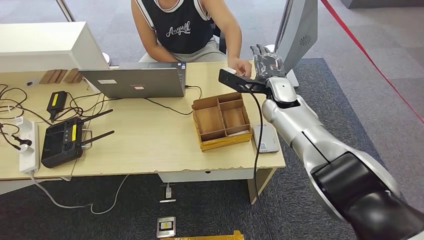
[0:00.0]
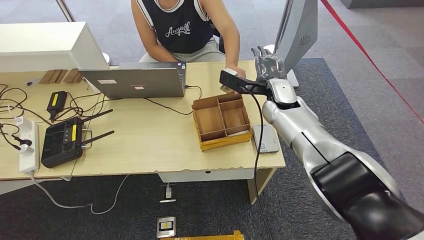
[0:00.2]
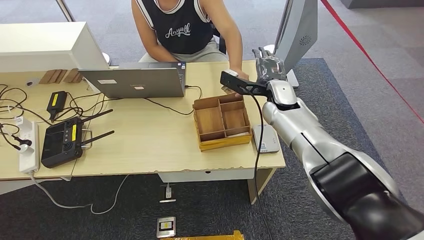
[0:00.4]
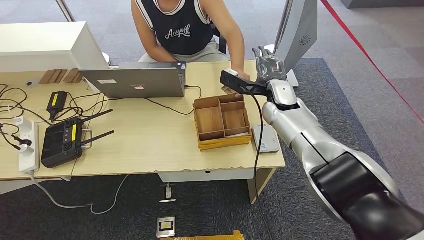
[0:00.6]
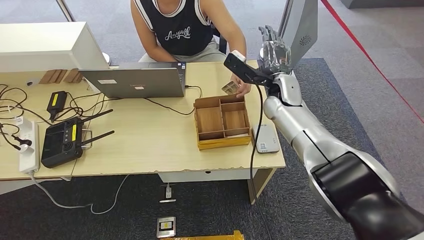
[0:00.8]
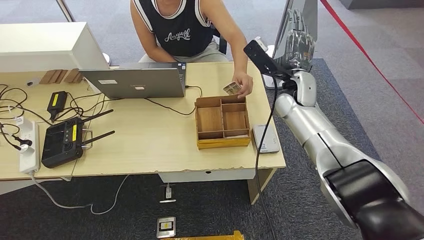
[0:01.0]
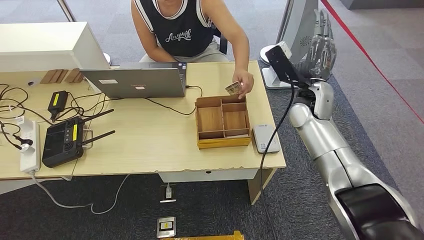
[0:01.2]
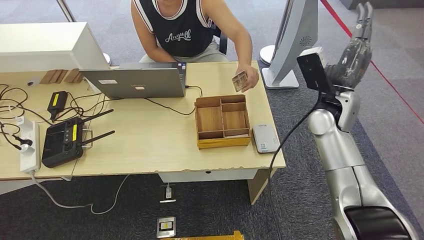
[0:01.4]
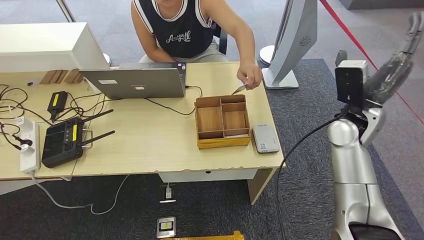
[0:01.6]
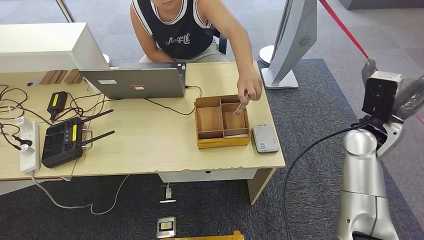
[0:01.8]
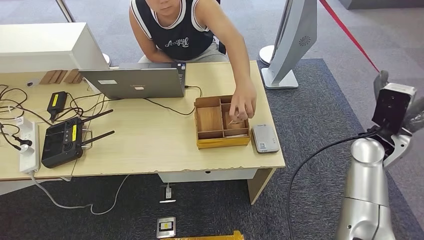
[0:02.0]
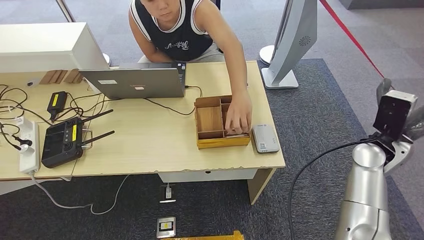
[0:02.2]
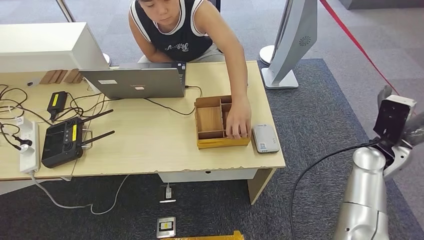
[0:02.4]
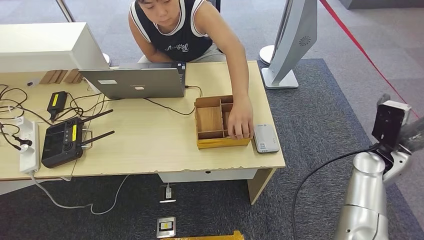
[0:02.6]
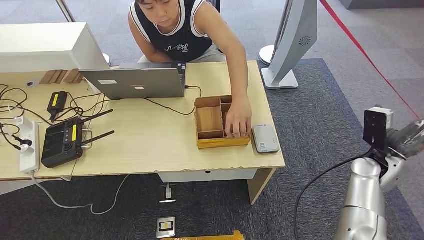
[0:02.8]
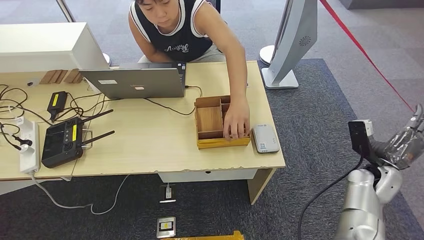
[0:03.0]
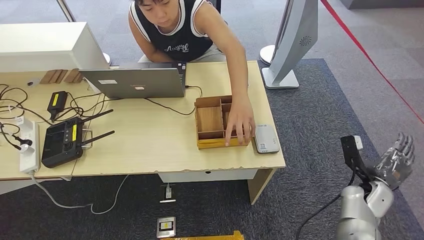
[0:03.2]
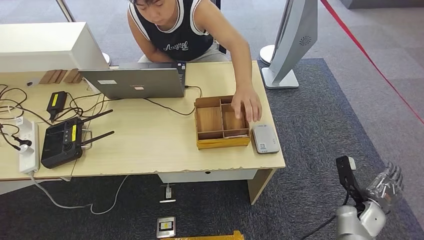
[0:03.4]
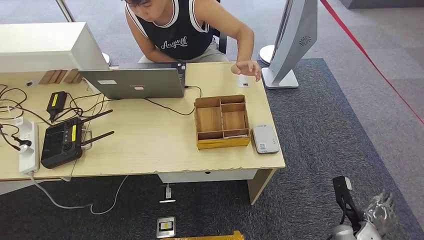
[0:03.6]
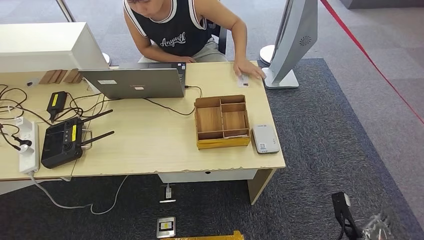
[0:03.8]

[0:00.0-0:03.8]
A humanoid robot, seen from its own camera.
Step, 0:00.0 to 0:03.8: Hand the room key to the person.
0:02.6 to 0:03.8: The right hand goes approximately 30 cm downward and backward.

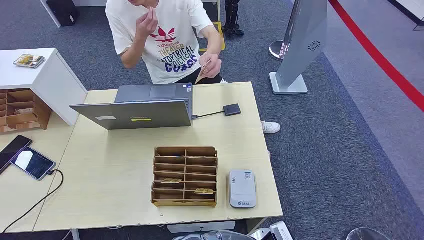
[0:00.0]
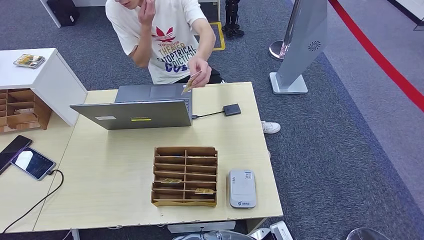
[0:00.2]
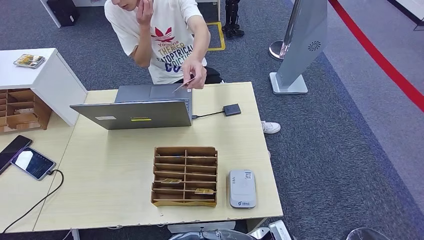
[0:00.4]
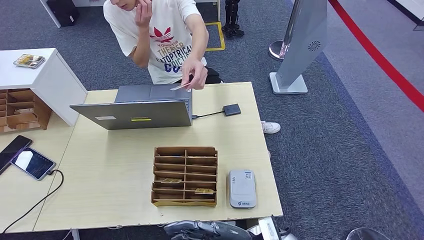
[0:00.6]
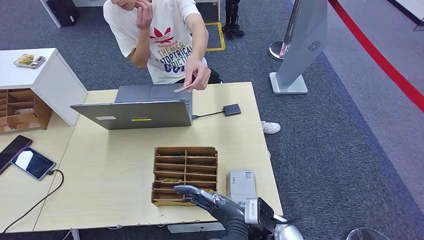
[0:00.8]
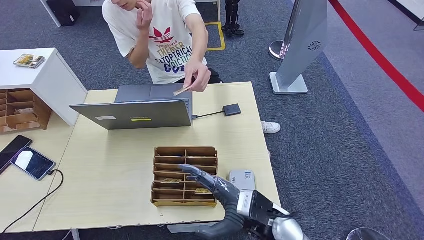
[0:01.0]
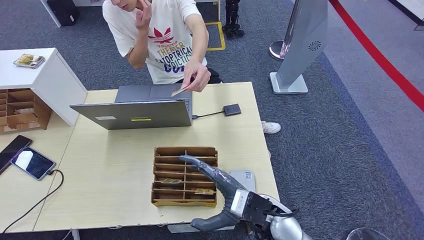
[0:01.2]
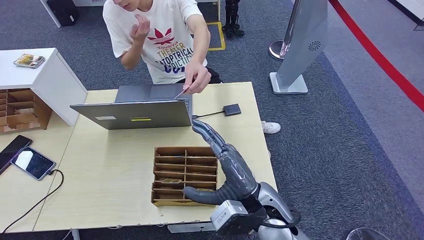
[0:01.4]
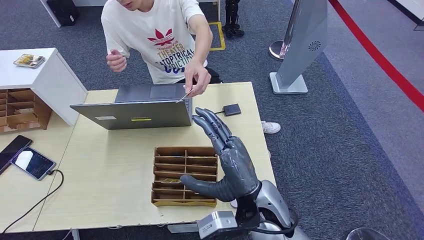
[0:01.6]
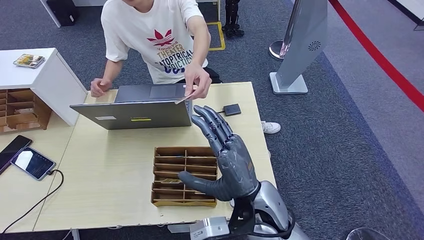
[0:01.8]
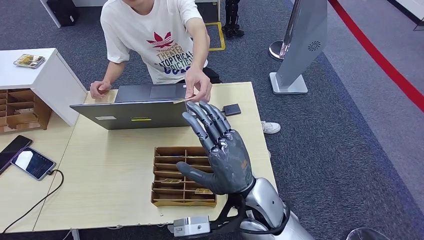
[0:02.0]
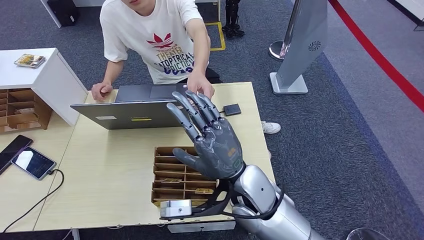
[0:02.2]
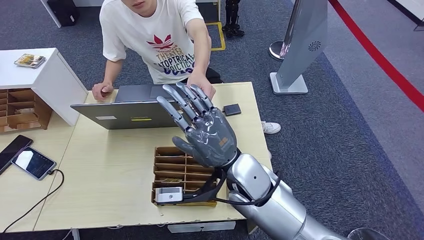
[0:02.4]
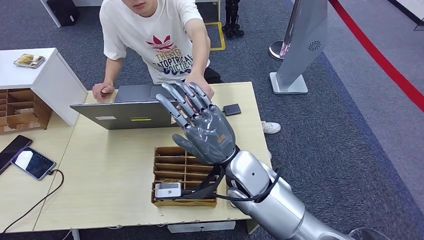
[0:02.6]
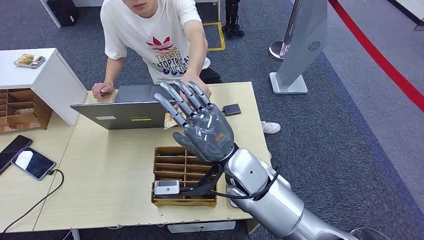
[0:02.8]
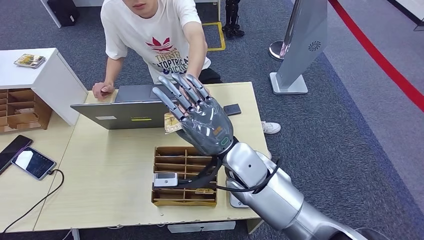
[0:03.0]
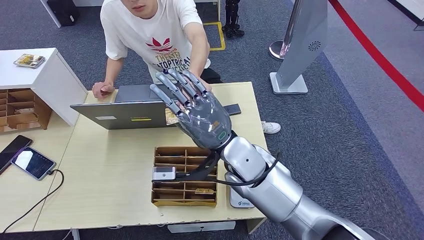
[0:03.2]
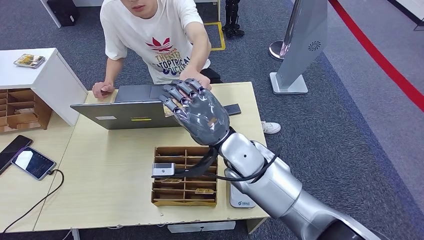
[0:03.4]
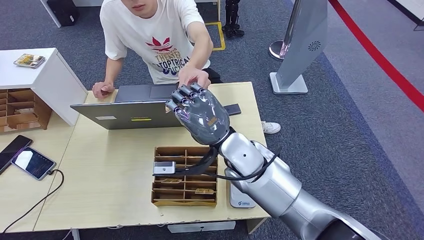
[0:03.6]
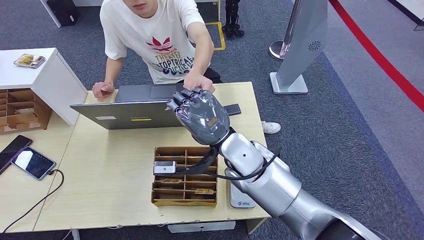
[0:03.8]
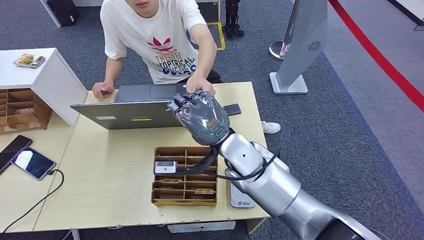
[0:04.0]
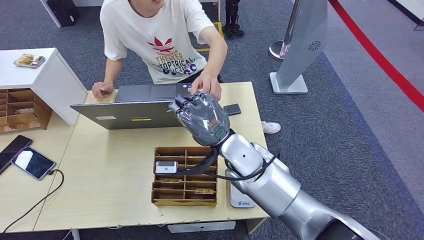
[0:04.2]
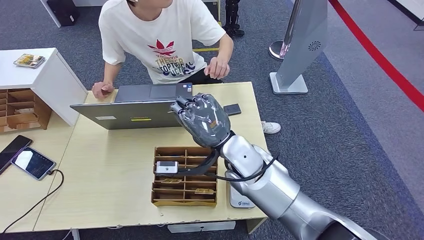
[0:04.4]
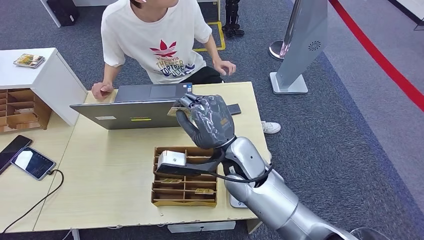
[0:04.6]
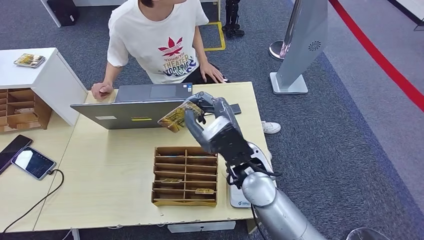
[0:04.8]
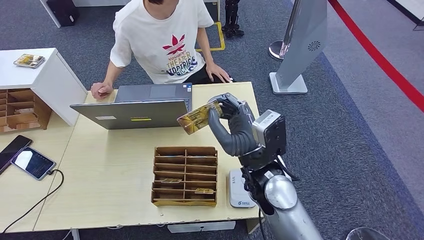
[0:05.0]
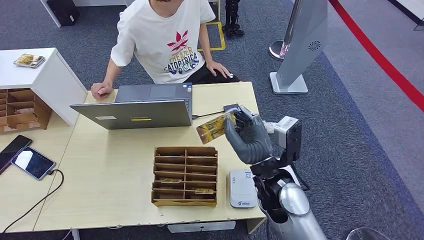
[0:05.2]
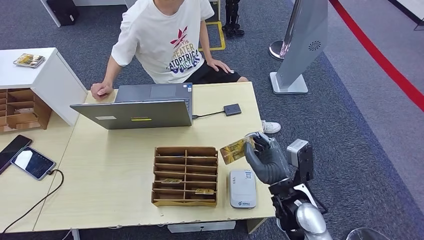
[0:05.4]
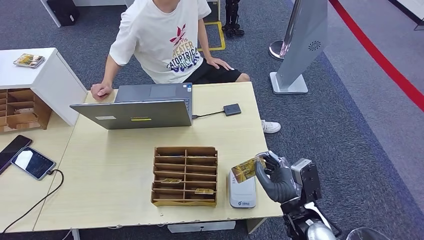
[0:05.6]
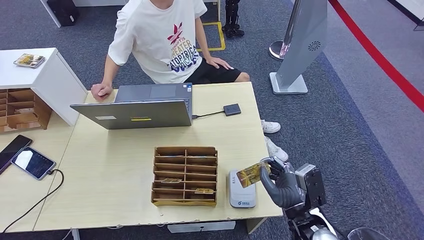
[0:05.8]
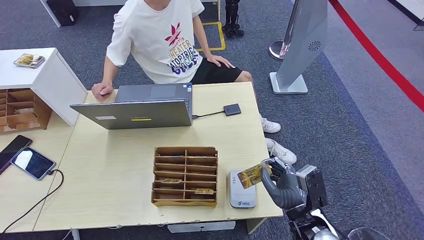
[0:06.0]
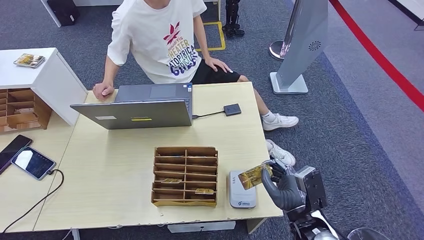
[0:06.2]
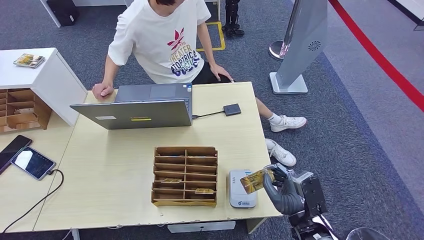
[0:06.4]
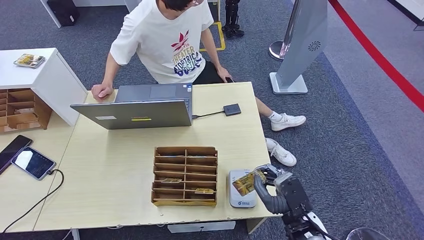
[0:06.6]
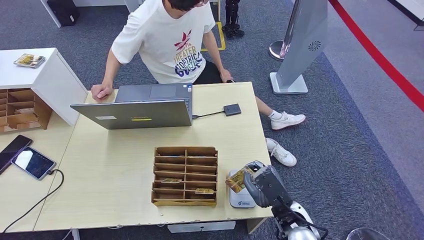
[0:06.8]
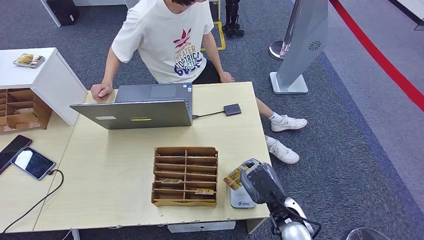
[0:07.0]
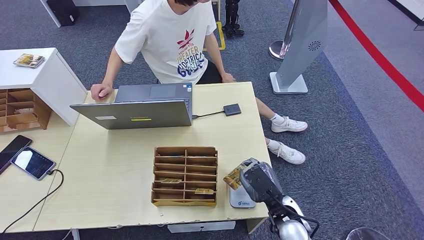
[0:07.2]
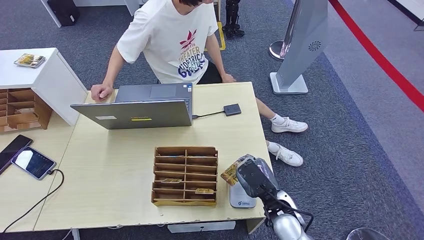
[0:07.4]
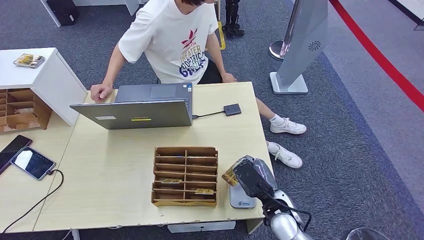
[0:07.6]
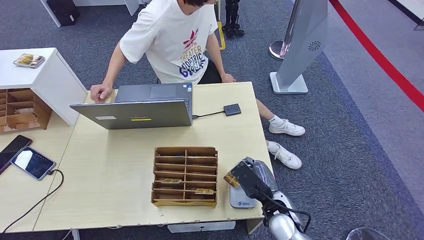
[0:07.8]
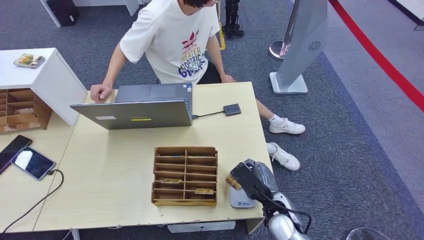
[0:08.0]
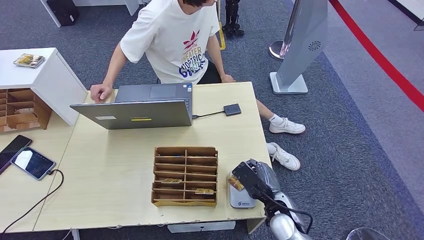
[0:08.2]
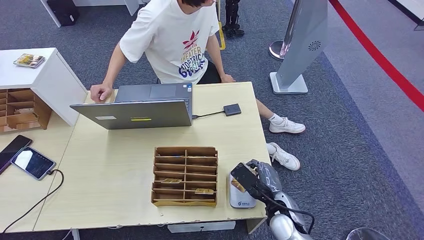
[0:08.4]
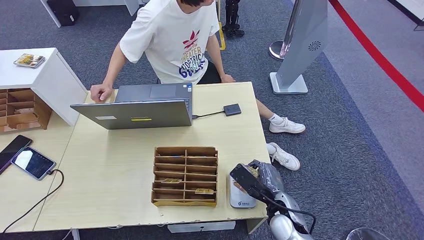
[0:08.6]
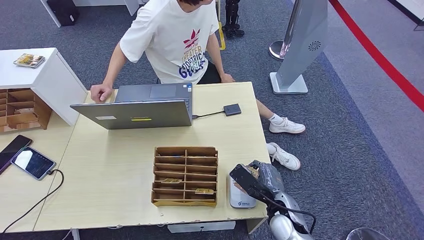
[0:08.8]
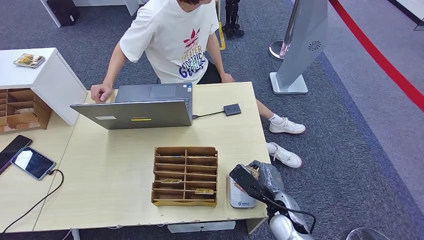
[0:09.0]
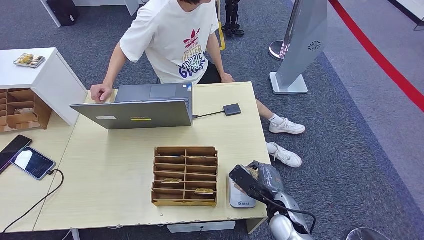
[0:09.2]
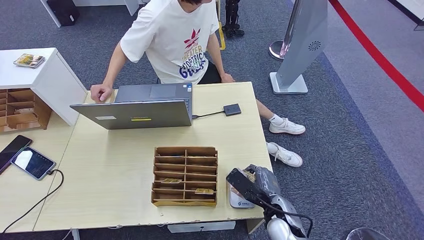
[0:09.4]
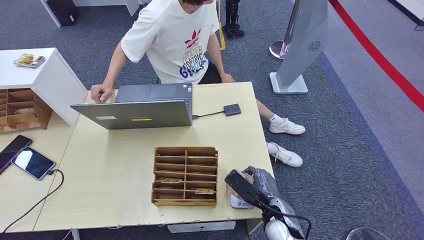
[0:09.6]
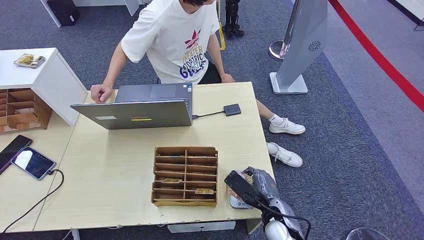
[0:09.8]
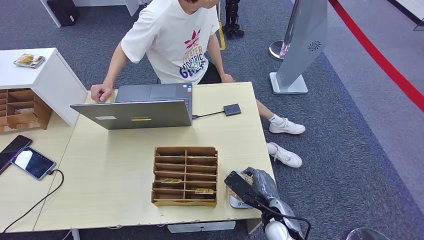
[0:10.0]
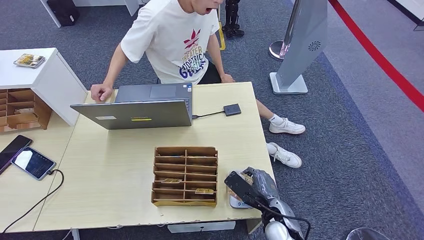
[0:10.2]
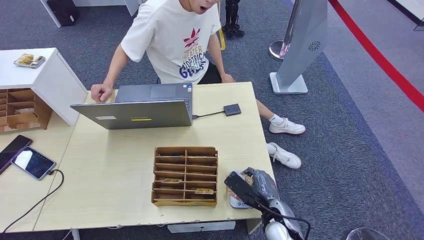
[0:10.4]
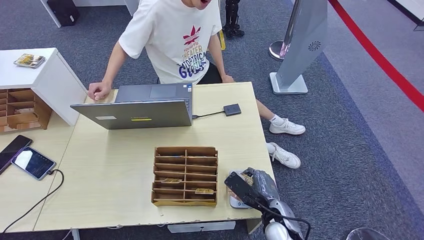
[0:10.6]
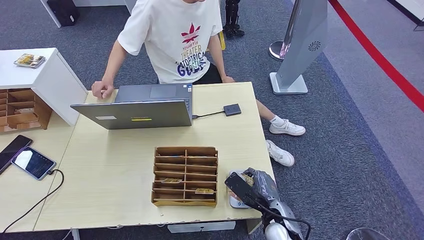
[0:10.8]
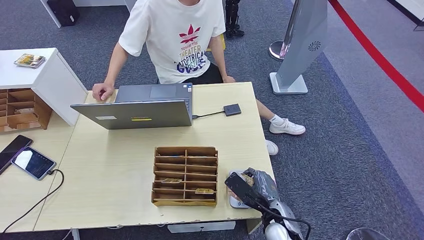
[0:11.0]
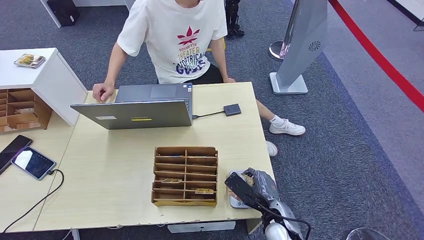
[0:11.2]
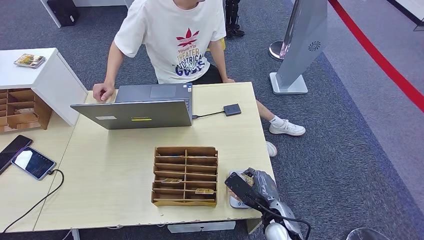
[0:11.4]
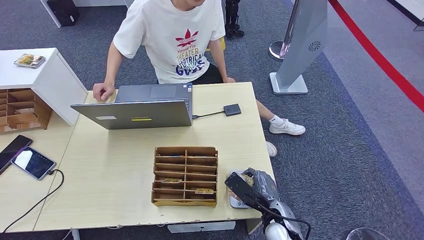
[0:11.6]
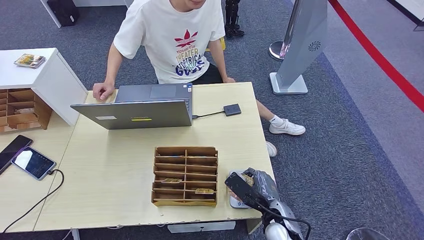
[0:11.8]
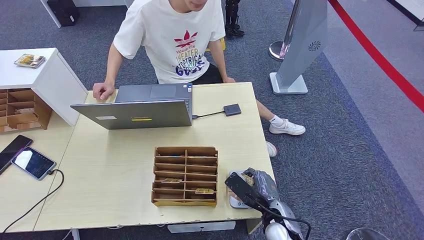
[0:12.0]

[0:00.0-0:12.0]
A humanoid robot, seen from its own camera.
Step, 0:00.0 to 0:04.0: Take the ID card from the person's hand.
Step, 0:04.2 to 0:08.6: Place the ID card on the card reader.
0:01.6 to 0:03.0: The right hand shifts approximately 10 cm forward.
0:03.0 to 0:04.4: The hands make only small movements.
0:04.4 to 0:06.0: The right hand heads to the right, backward and downward, covering roughly 25 cm.
0:06.0 to 0:07.6: The right hand shifts by roughly 5 cm.
0:07.6 to 0:10.4: The hands stay close to where they were, moving slightly.
0:10.4 to 0:12.0: Neither hand changes place.

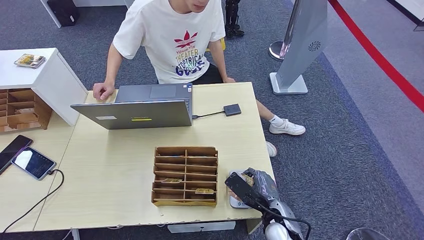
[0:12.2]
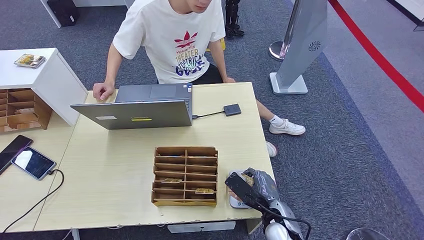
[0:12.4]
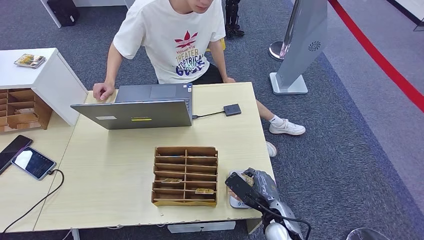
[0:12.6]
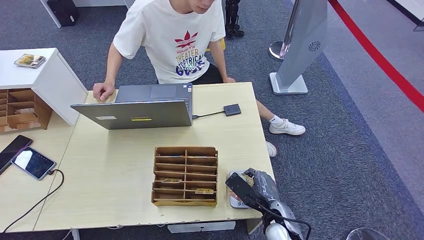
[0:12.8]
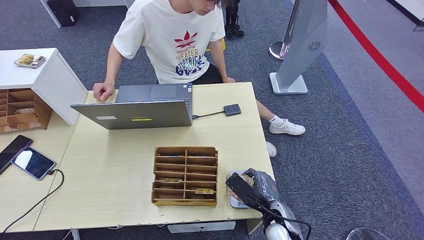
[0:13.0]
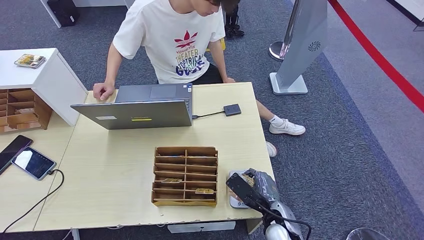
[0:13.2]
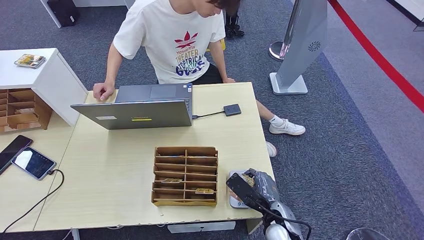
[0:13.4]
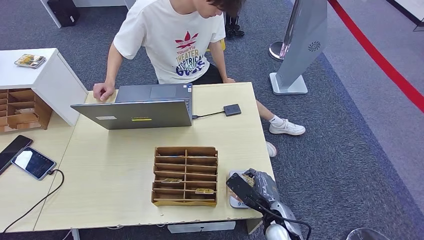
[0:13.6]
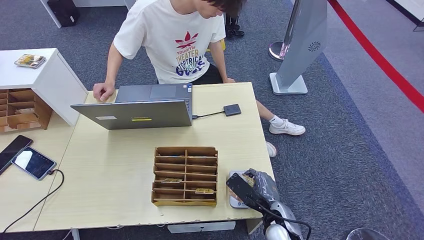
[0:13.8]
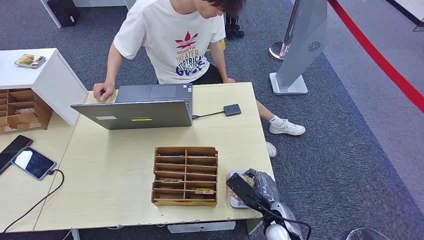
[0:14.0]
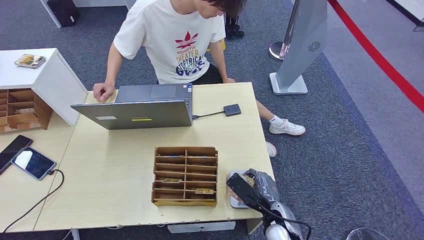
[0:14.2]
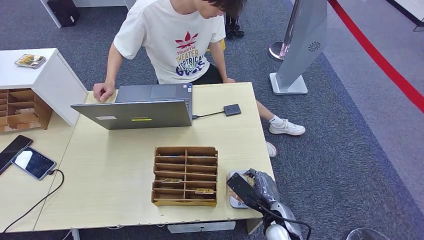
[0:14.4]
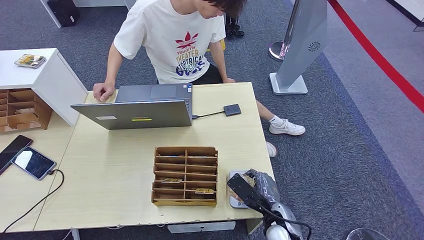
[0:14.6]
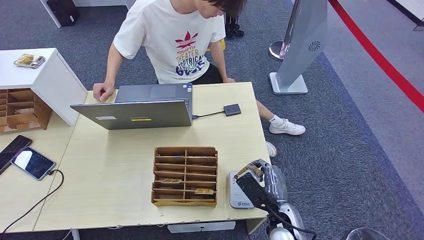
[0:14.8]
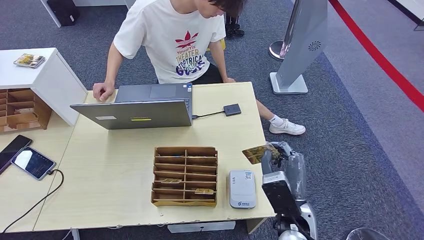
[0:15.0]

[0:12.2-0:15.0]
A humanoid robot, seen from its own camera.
0:12.2 to 0:13.6: Both hands stay about where they are.
0:13.6 to 0:15.0: The right hand moves upward, approximately 10 cm.
